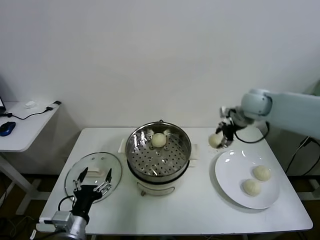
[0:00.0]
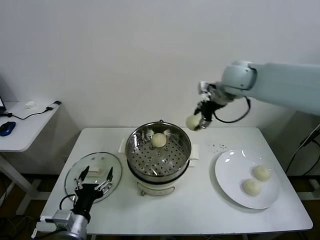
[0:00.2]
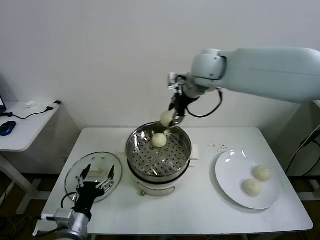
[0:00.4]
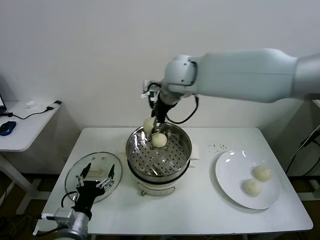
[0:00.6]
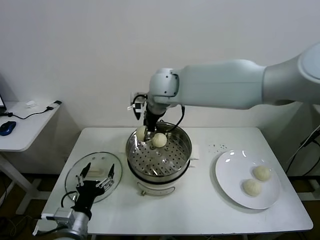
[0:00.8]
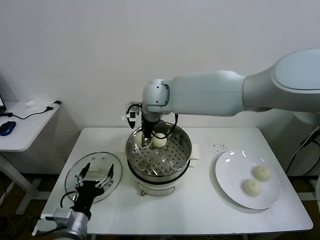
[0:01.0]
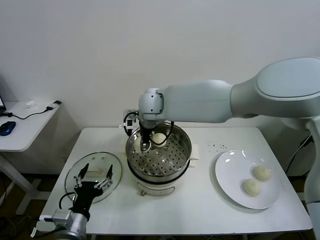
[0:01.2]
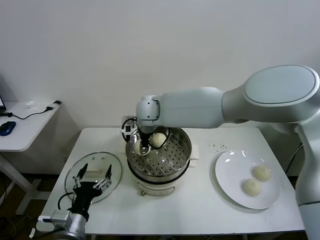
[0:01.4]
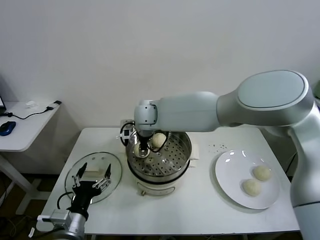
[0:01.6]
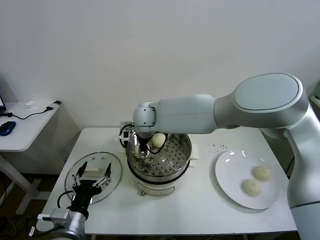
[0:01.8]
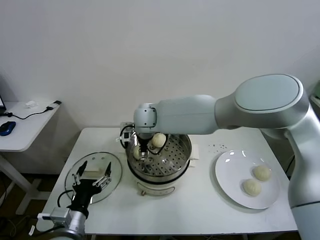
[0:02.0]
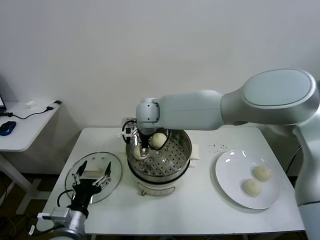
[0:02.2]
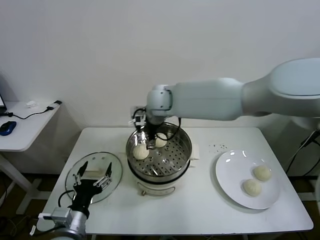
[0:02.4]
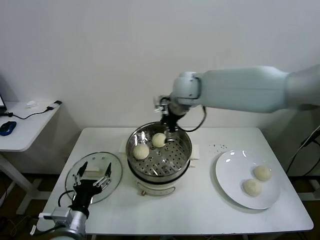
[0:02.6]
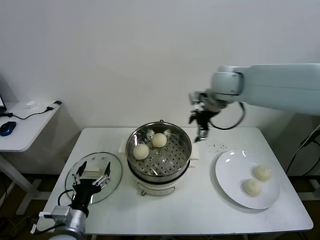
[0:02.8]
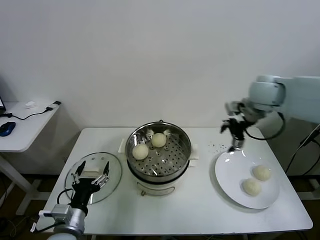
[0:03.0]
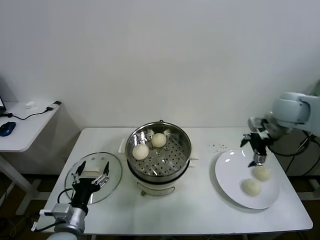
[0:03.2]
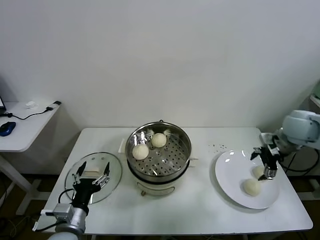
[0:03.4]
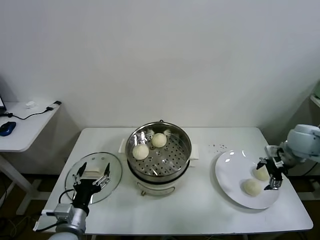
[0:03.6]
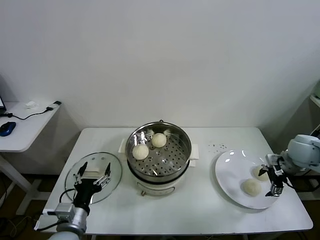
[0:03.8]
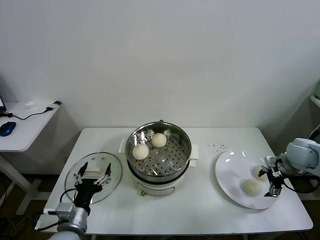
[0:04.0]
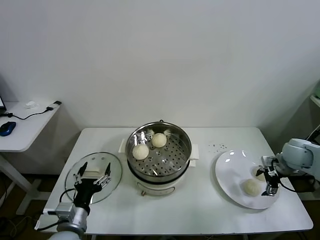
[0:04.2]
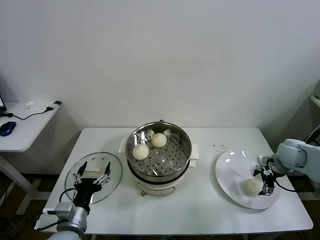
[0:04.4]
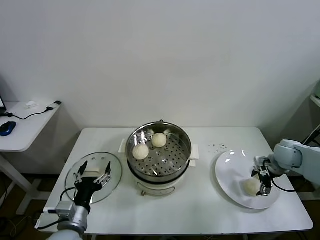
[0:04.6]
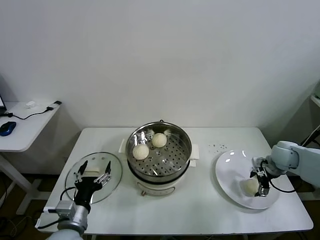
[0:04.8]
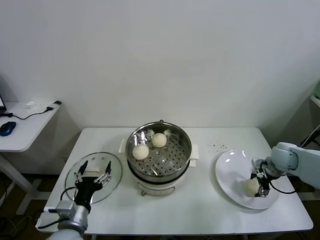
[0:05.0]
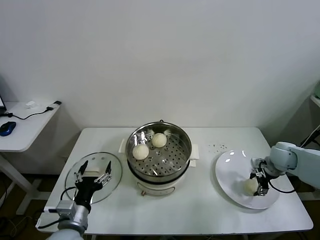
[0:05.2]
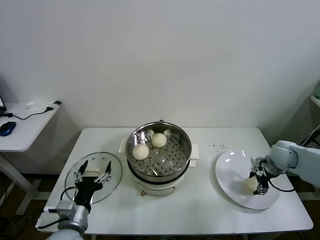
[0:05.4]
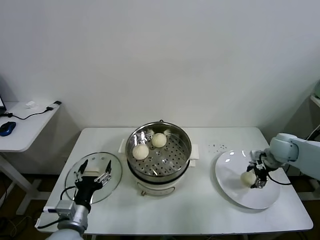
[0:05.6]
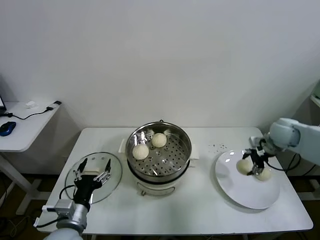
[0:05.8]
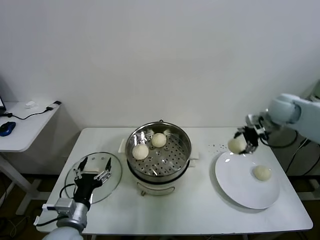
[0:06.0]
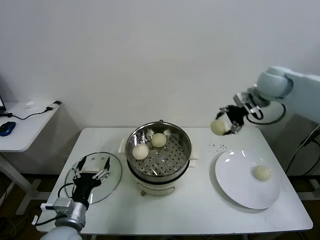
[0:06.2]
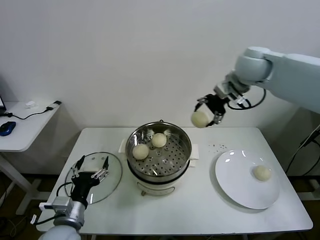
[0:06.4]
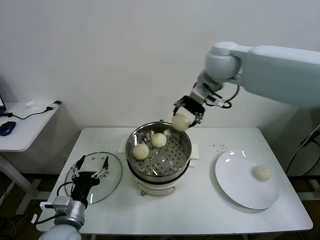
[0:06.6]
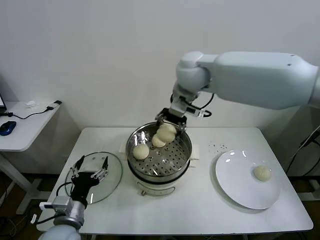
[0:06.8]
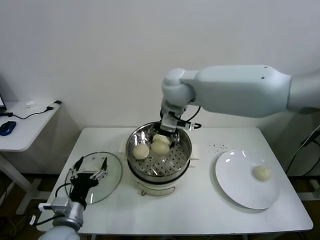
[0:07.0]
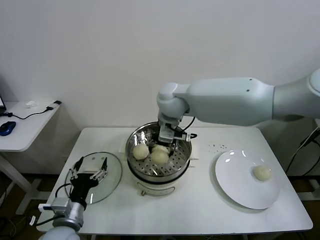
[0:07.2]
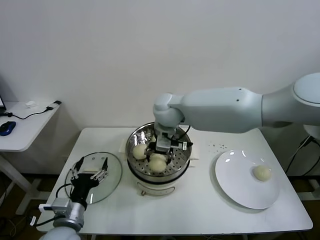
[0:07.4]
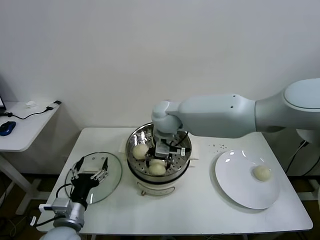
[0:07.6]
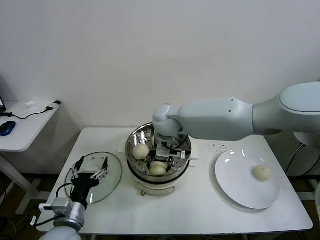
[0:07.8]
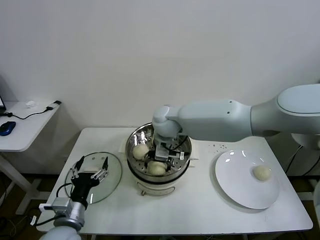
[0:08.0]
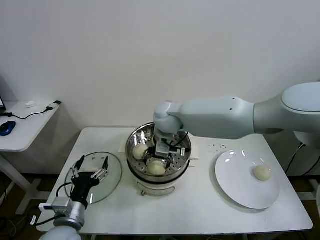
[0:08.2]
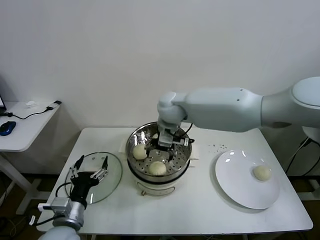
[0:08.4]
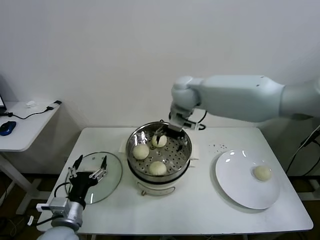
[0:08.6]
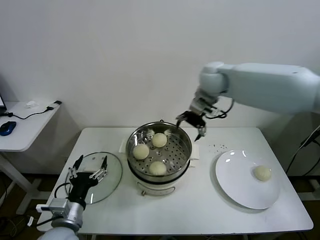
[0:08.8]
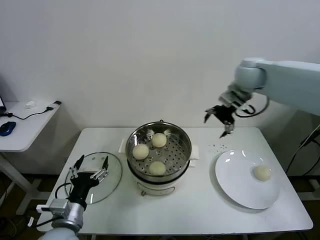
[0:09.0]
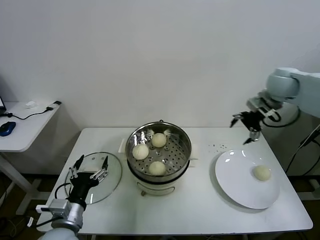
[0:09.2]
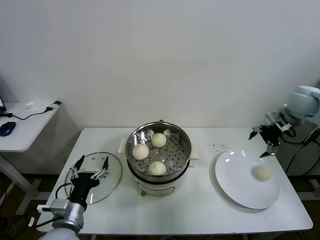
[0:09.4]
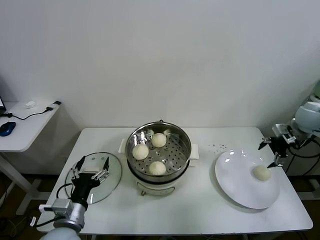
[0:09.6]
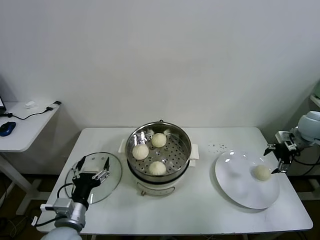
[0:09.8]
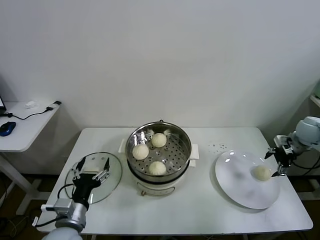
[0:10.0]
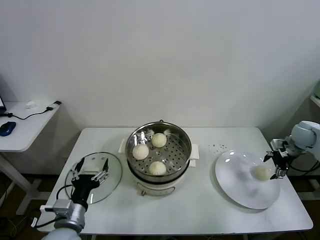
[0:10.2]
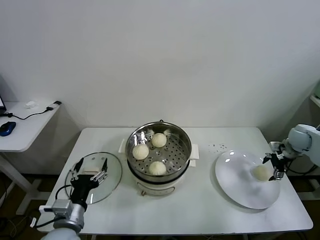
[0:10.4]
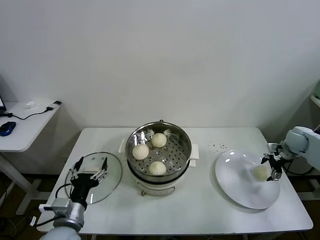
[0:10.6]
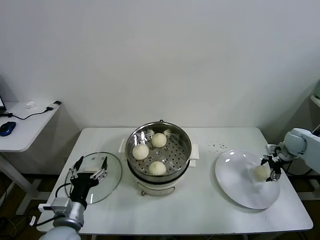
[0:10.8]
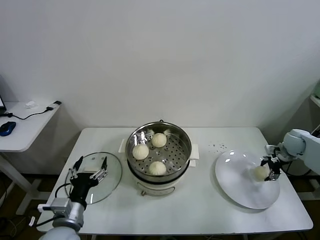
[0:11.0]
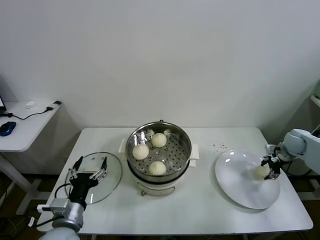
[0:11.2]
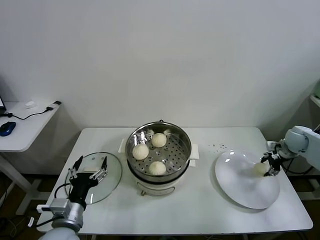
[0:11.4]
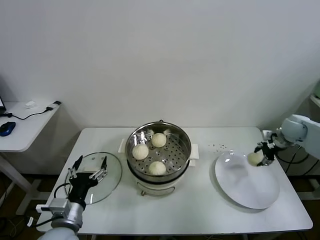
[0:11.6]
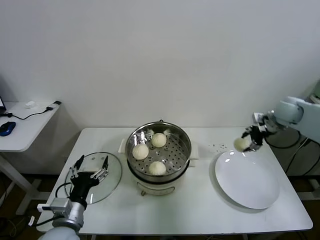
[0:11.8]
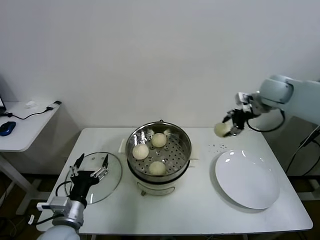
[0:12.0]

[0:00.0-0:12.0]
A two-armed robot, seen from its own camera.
Task of the whole recording: take steamed baozi put them in steamer.
Step, 0:00.0 to 0:02.0: Place the baozi on the steamer with right gripper.
Step, 0:02.2 to 0:05.0: Grasp the baozi in the plate with right gripper.
Step, 0:05.4 to 0:08.2: Place the baozi on the steamer with right gripper.
Step, 0:08.4 to 0:11.2: Grasp the baozi in the plate with right gripper.
0:00.0 to 0:01.6: The right gripper is displaced to the left by some 35 cm.
0:01.6 to 0:03.0: The right gripper travels to the right by roughly 35 cm, and opens.
0:03.0 to 0:04.4: The right gripper shifts roughly 25 cm downward and to the right.
0:04.4 to 0:06.0: The right gripper shifts approximately 20 cm upward, forward and to the left.
0:06.0 to 0:07.6: The right gripper heads to the left, covering roughly 35 cm.
0:07.6 to 0:09.0: The right gripper shifts some 30 cm to the right and upward, and opens up.
0:09.0 to 0:10.4: The right gripper heads to the right and downward, covering roughly 35 cm.
0:10.4 to 0:12.0: The right gripper goes some 25 cm upward and to the left, and closes up.

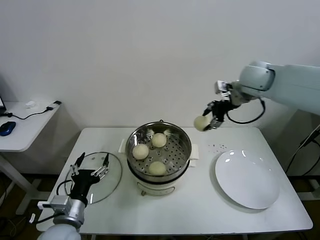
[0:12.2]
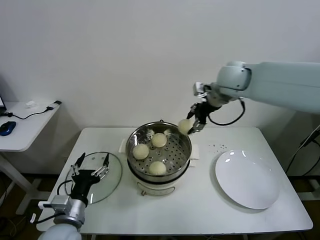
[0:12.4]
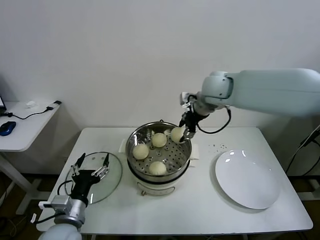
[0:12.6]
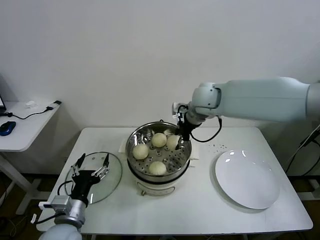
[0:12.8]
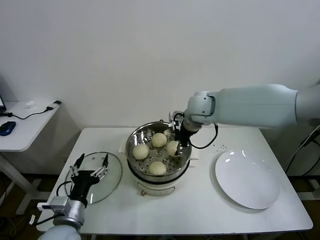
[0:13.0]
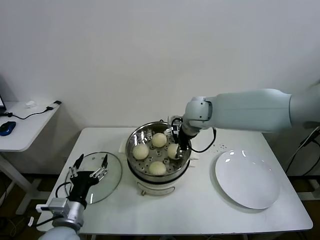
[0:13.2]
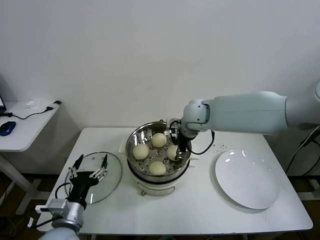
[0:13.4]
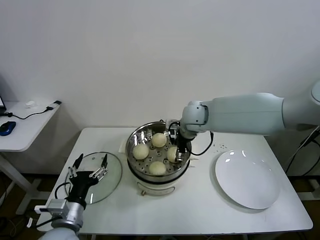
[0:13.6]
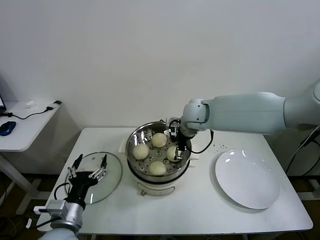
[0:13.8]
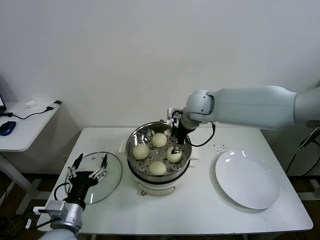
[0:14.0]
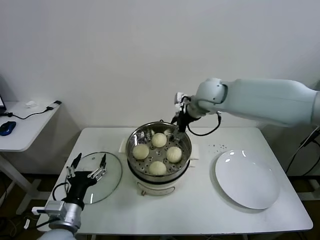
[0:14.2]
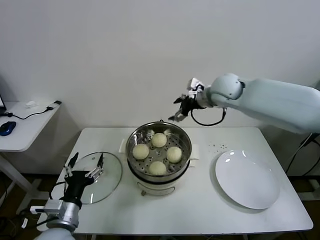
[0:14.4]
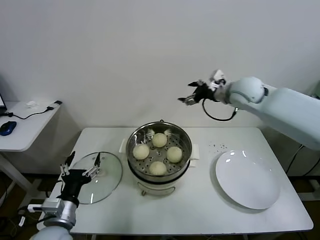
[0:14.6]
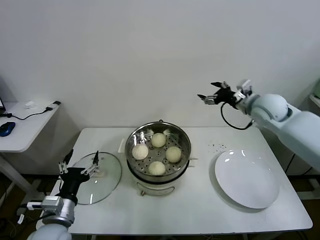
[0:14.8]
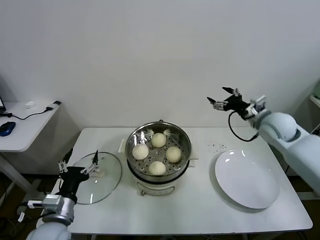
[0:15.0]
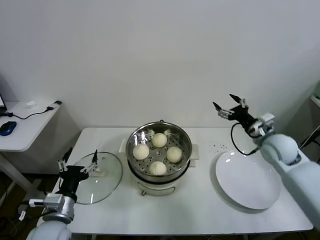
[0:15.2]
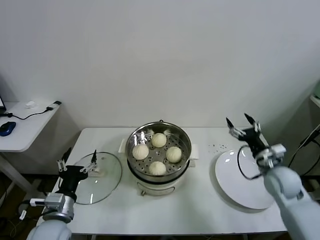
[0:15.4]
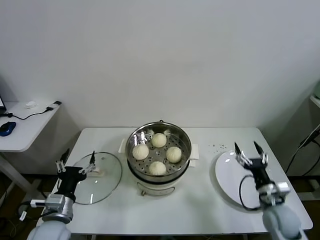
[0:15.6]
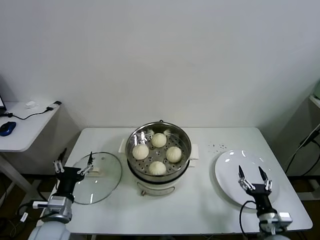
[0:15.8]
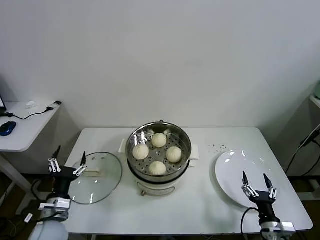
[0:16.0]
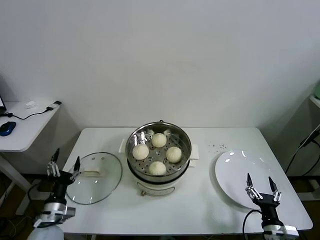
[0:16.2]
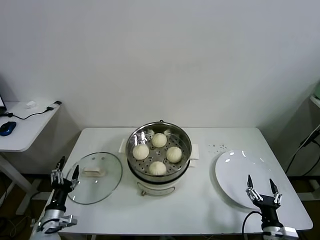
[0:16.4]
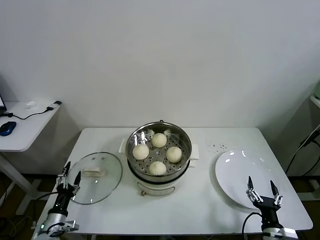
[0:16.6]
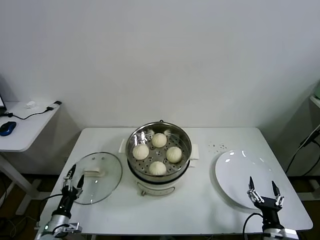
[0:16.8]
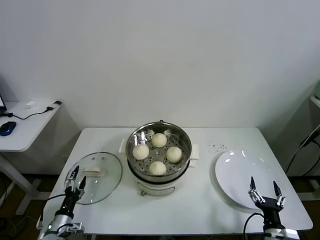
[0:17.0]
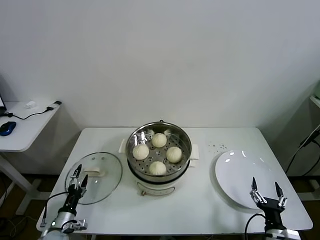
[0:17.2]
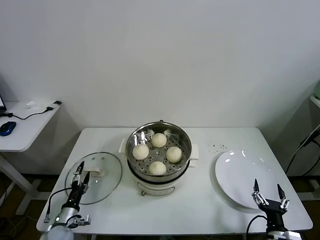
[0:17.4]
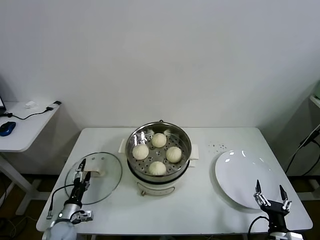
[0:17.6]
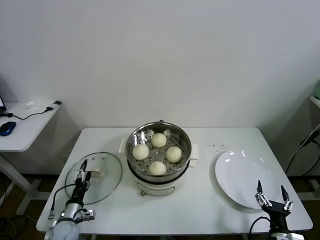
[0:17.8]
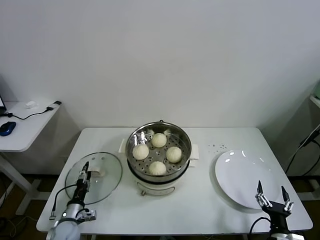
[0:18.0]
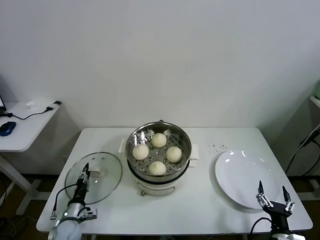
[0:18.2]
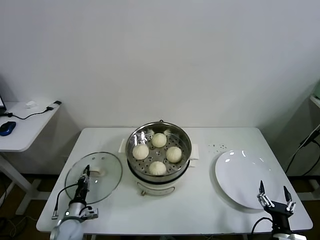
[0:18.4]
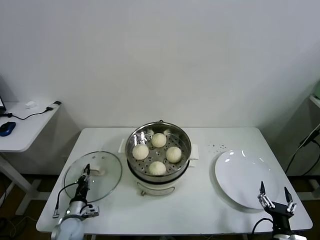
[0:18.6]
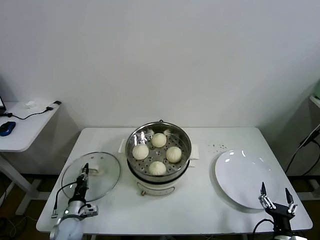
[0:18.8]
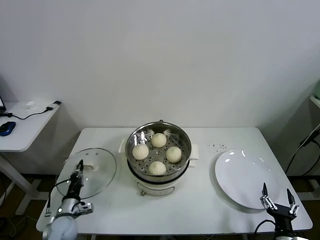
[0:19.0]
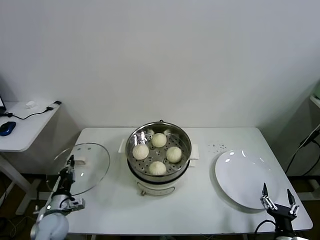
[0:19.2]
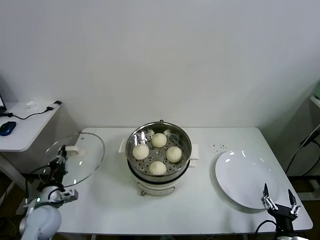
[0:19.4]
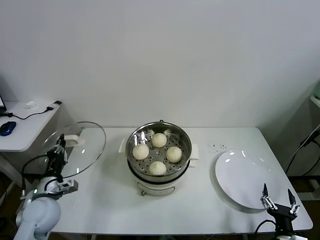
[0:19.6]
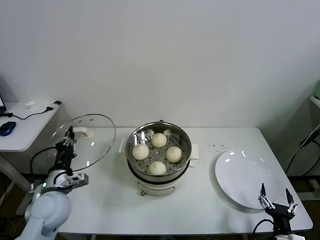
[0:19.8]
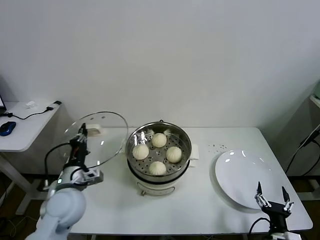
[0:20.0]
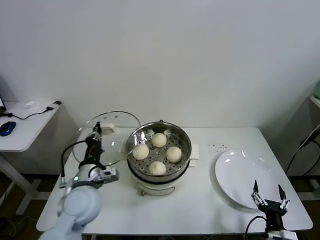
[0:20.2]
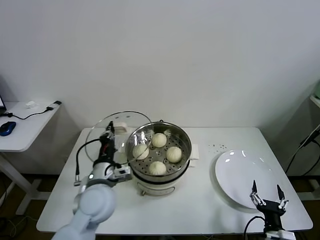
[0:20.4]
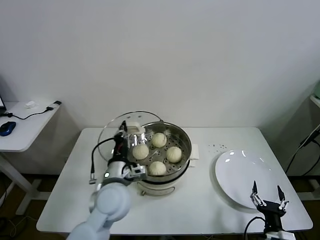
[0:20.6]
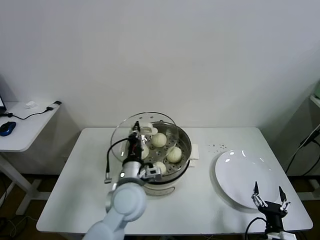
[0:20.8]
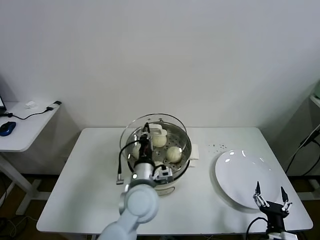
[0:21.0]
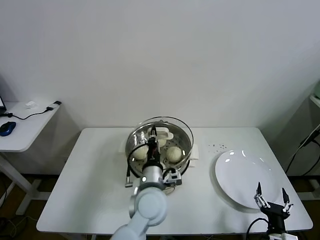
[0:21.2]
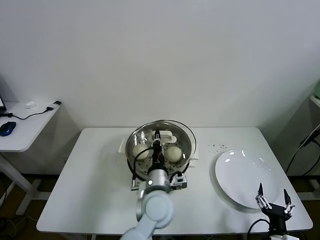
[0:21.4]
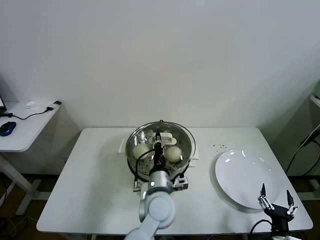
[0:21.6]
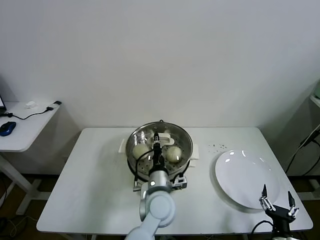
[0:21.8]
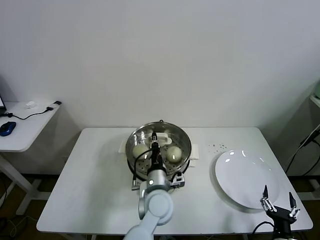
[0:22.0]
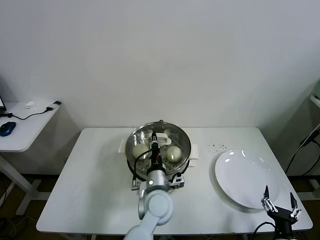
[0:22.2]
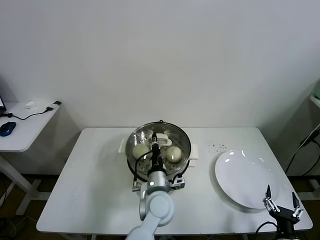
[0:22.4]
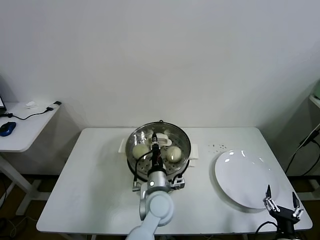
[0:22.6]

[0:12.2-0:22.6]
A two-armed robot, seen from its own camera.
Task of the whole recording: take steamed baozi put them in steamer.
Step, 0:12.2 to 0:13.8: Place the baozi on the steamer with right gripper.
Step, 0:14.0 to 0:18.4: Grasp the pot lid with left gripper.
0:12.2 to 0:13.6: The right gripper heads to the left and downward, covering about 20 cm, and opens up.
0:13.6 to 0:15.2: The right gripper is displaced to the right by roughly 25 cm.
0:15.2 to 0:16.6: The right gripper goes some 35 cm backward and downward. Meanwhile the left gripper travels downward and to the left by some 20 cm.
0:16.6 to 0:18.2: The left gripper shifts by approximately 10 cm, and closes up.
0:18.2 to 0:19.6: The left gripper goes roughly 15 cm upward, and closes.
0:19.6 to 0:21.2: The left gripper moves to the right, roughly 30 cm.
0:21.2 to 0:22.6: The left gripper shifts some 5 cm downward.
